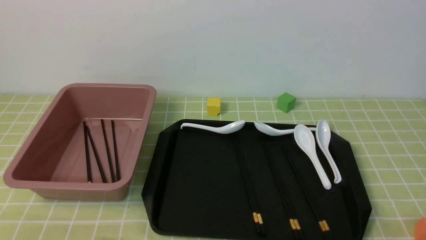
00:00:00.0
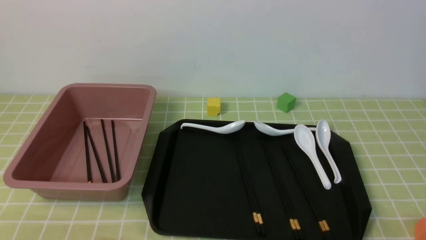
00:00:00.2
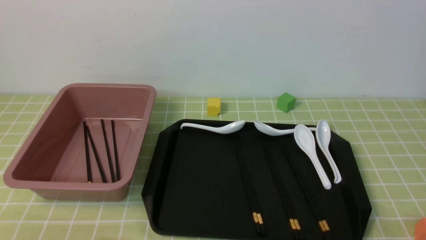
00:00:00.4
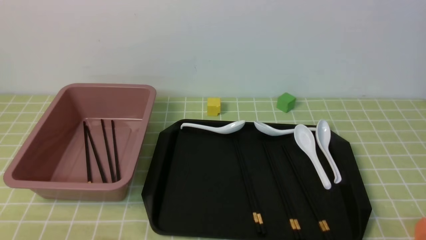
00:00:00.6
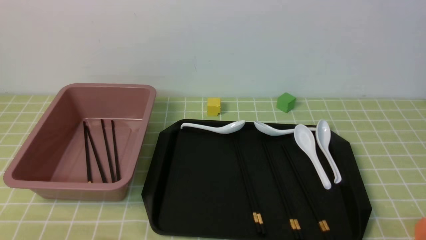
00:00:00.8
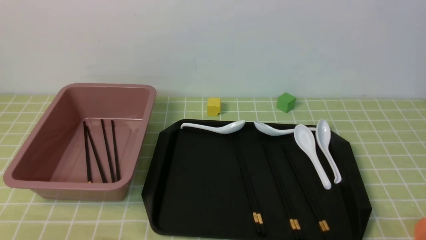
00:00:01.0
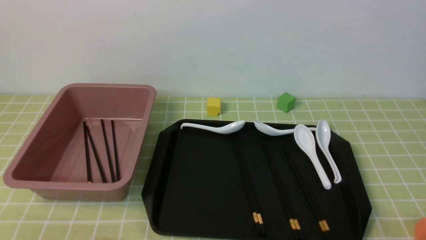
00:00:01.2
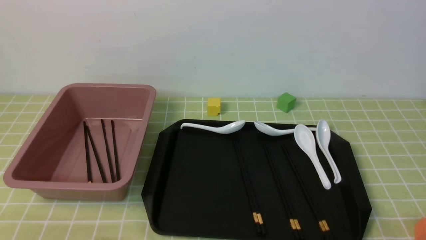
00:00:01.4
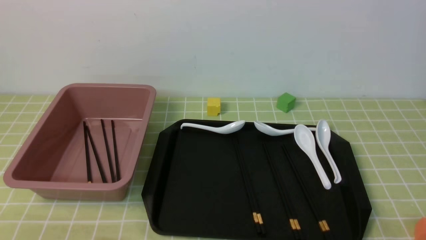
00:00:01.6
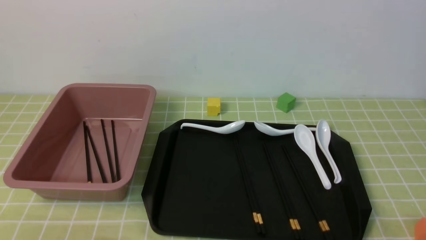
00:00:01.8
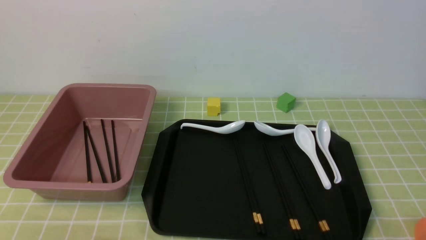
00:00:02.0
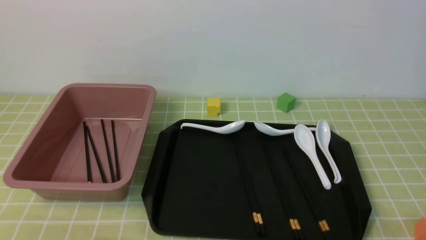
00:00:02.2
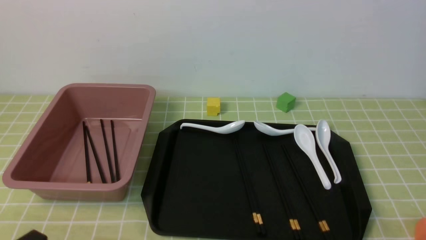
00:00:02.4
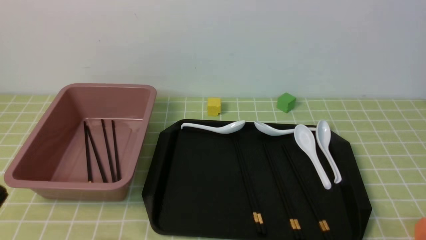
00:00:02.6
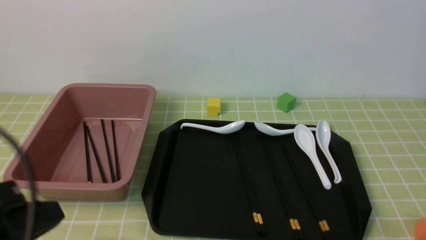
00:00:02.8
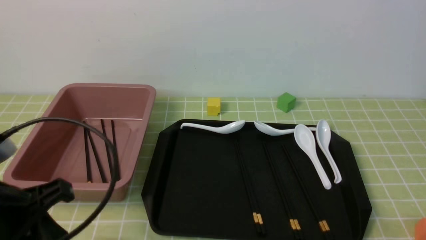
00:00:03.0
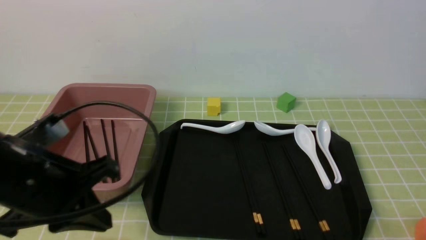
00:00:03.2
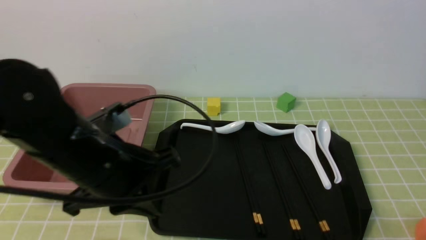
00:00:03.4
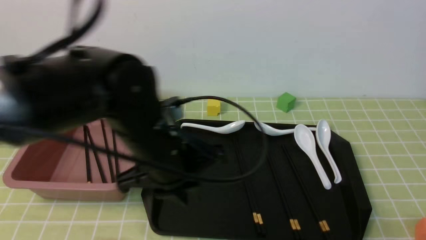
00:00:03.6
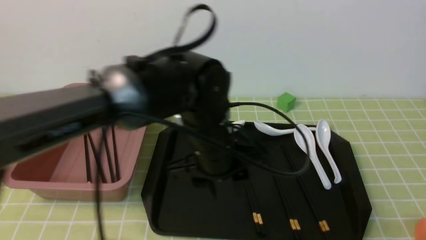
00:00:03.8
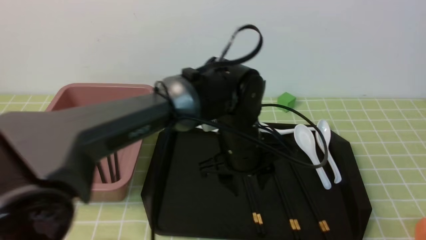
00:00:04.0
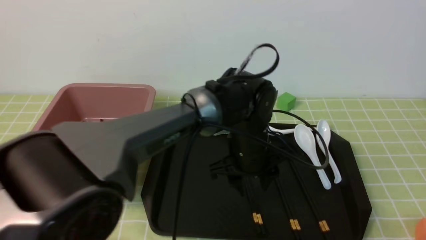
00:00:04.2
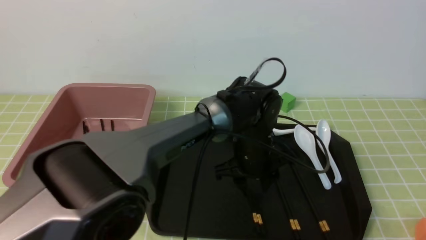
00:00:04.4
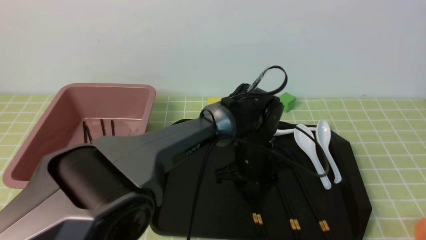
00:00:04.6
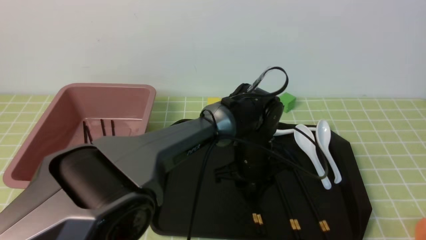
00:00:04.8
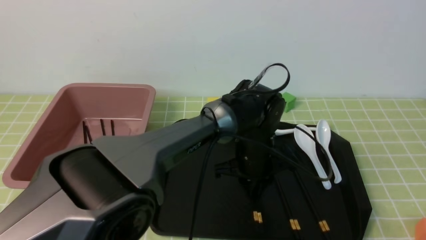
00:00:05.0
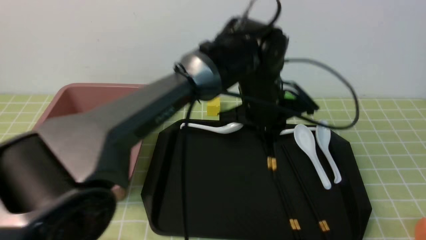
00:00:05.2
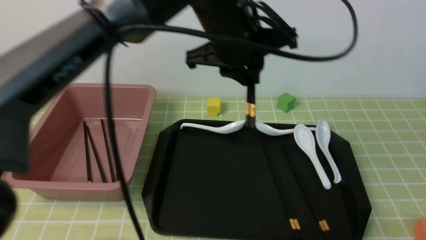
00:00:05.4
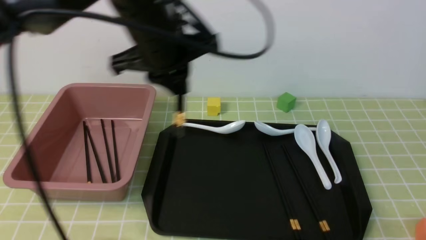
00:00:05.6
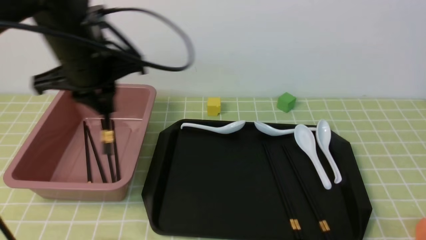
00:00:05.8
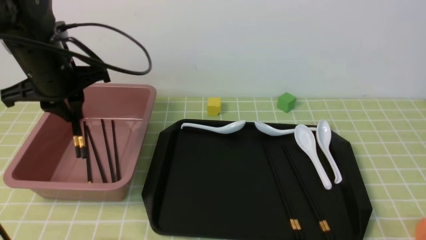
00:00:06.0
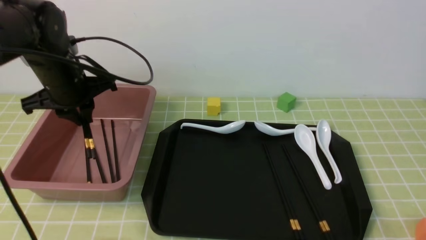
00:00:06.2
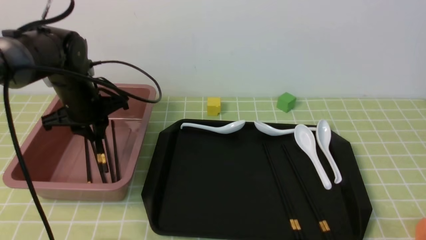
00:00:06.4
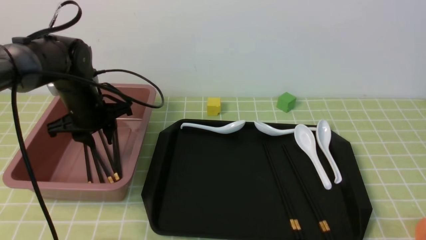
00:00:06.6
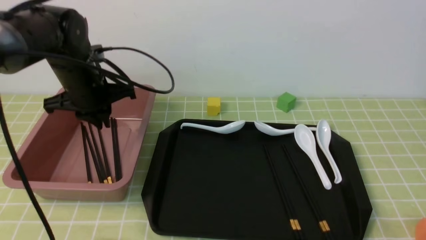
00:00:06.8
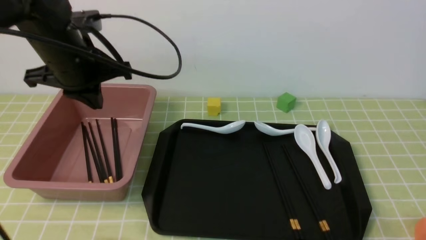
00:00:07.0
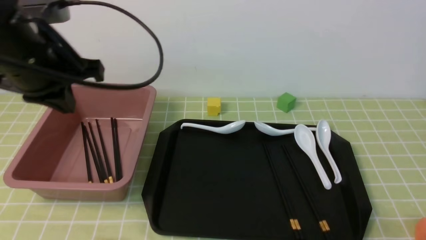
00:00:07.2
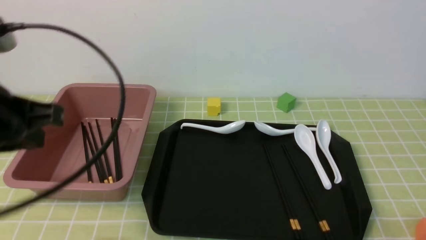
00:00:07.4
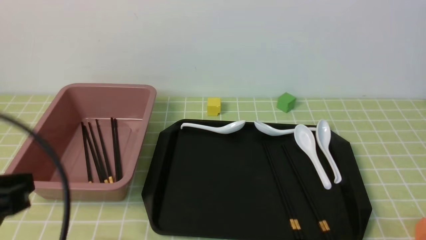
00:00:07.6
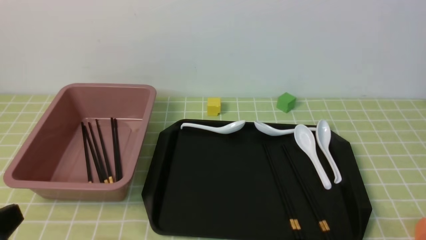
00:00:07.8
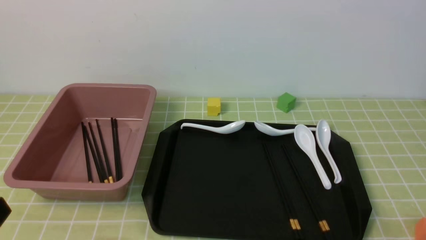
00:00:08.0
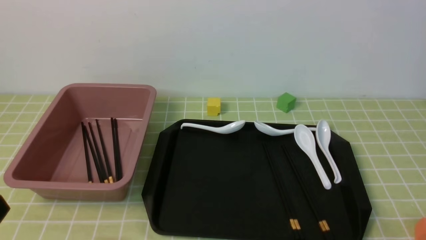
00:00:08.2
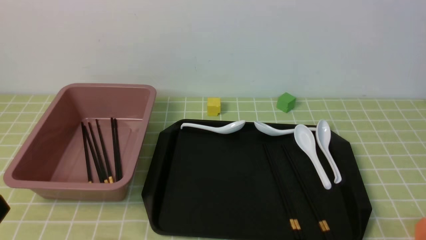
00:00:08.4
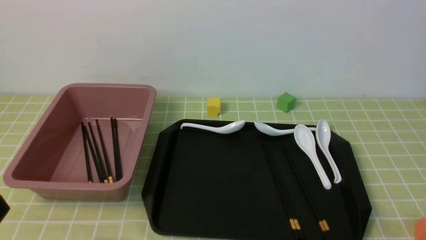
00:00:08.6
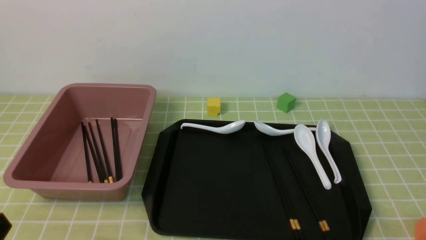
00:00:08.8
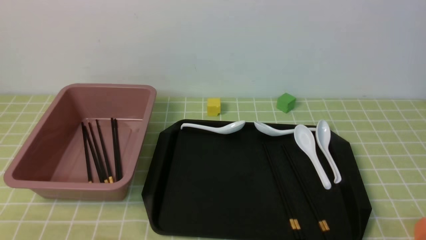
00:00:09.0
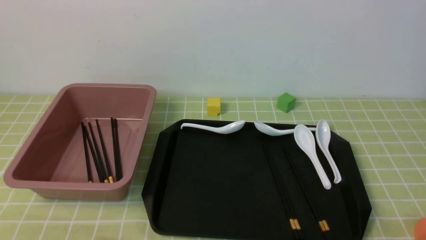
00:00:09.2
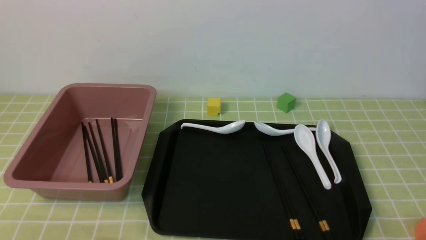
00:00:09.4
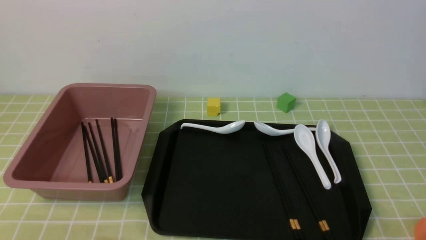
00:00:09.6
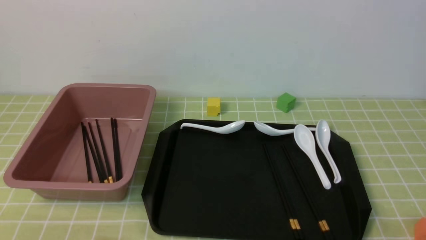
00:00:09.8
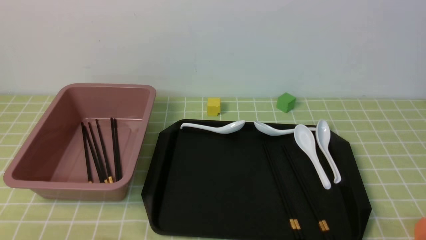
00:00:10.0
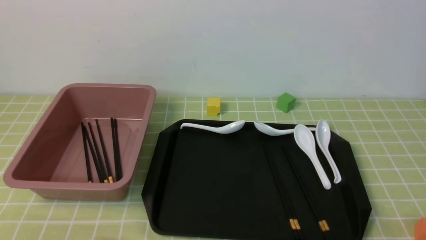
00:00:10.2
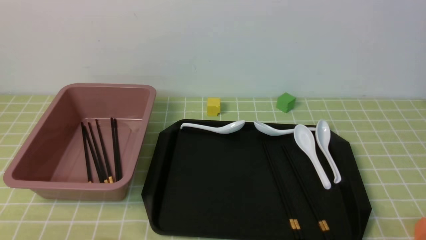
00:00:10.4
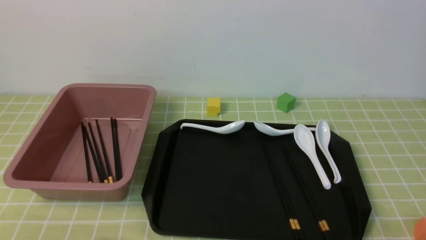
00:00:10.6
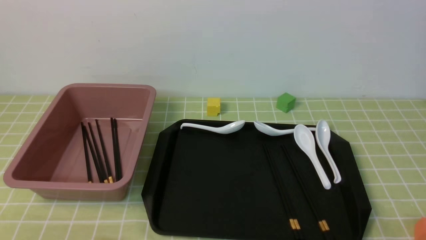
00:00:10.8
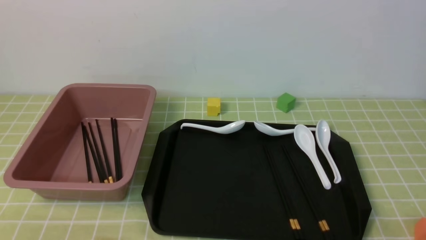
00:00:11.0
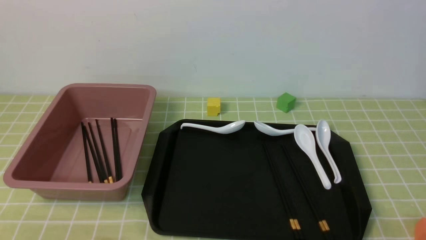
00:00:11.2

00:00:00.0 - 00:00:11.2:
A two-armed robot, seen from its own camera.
Step, 00:00:00.0 - 00:00:05.2: use the left arm to grab a pair of chopsticks.
Step, 00:00:05.4 - 00:00:06.8: use the left arm to put the chopsticks into the lunch box.
00:00:01.6 - 00:00:03.2: The left gripper shifts roughly 20 cm upward, forward and to the right.
00:00:03.2 - 00:00:04.8: The left gripper is displaced to the right, forward and downward by roughly 35 cm, and opens its fingers.
00:00:04.8 - 00:00:06.4: The left gripper heads to the left, covering about 30 cm.
00:00:06.4 - 00:00:08.0: The left gripper moves backward, roughly 35 cm, and closes up.
00:00:09.6 - 00:00:11.2: Both grippers stay about where they are.
